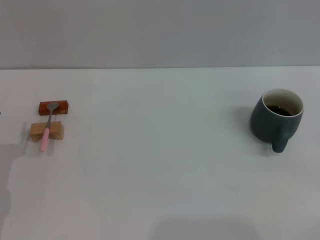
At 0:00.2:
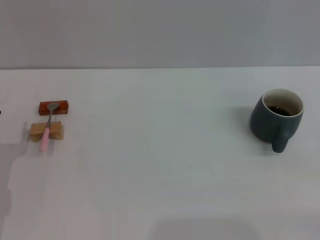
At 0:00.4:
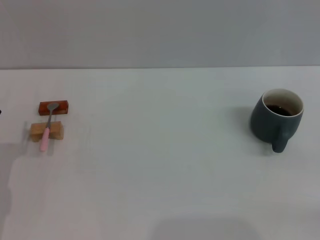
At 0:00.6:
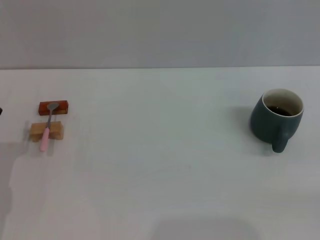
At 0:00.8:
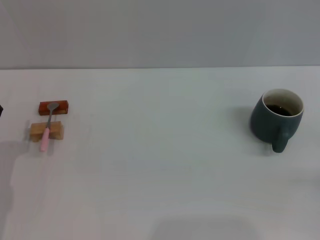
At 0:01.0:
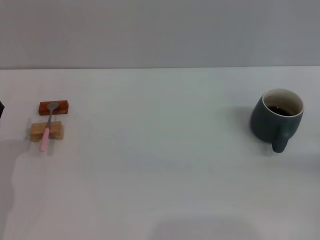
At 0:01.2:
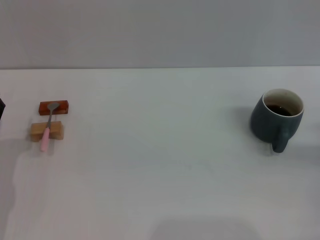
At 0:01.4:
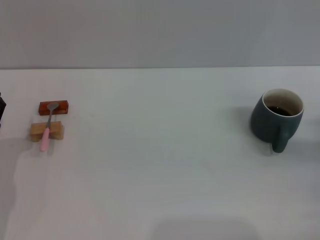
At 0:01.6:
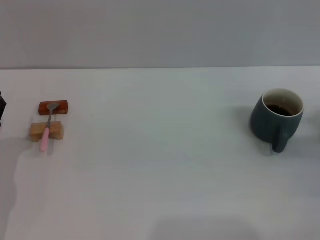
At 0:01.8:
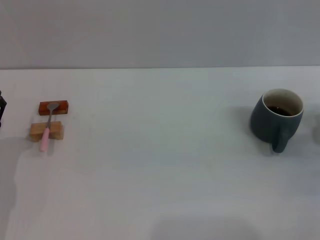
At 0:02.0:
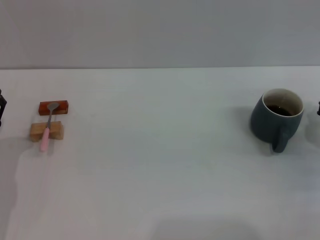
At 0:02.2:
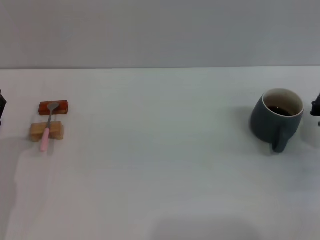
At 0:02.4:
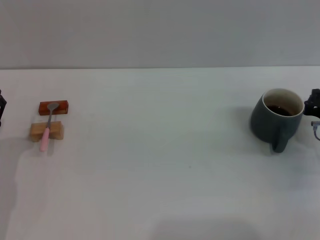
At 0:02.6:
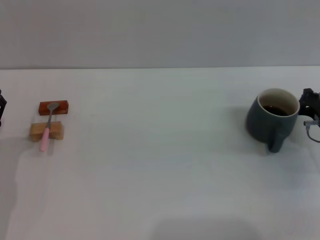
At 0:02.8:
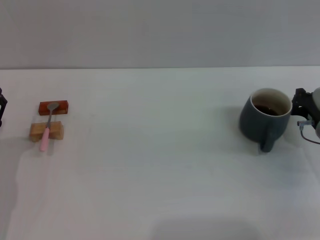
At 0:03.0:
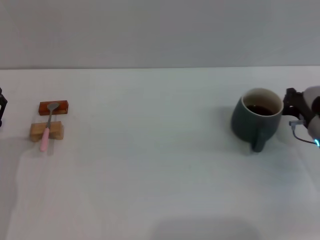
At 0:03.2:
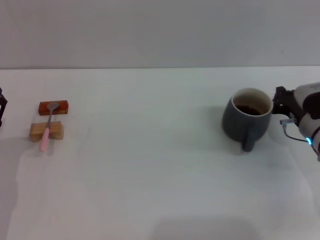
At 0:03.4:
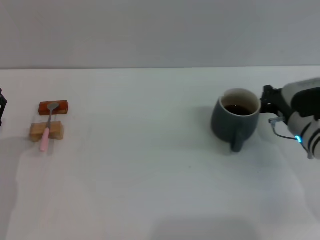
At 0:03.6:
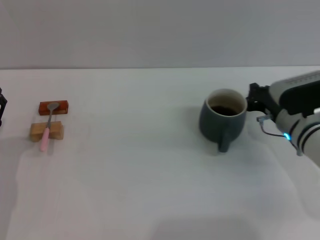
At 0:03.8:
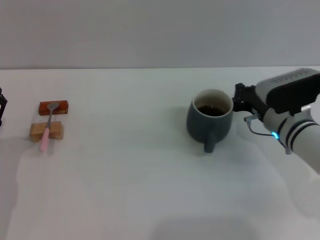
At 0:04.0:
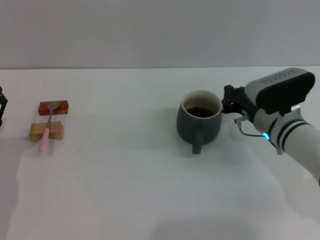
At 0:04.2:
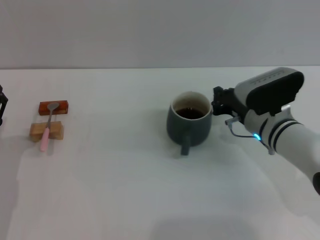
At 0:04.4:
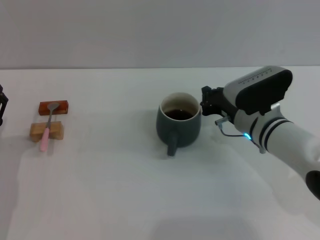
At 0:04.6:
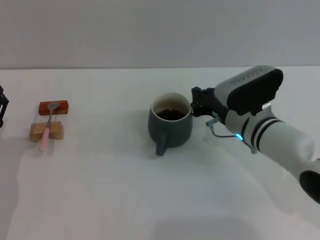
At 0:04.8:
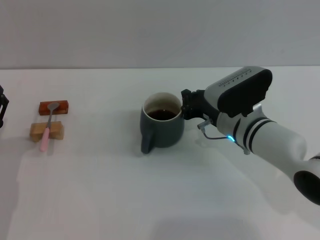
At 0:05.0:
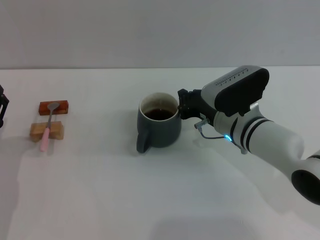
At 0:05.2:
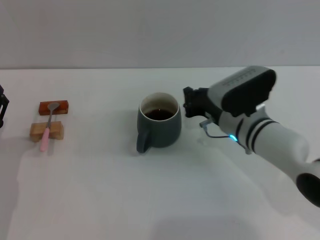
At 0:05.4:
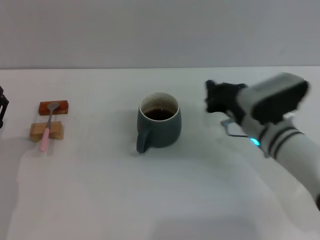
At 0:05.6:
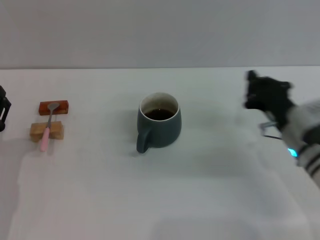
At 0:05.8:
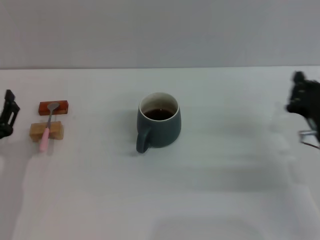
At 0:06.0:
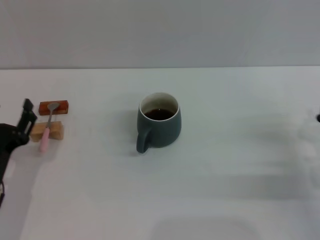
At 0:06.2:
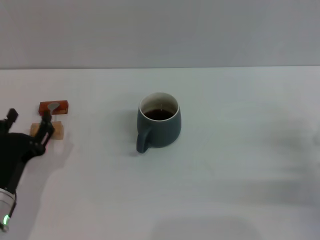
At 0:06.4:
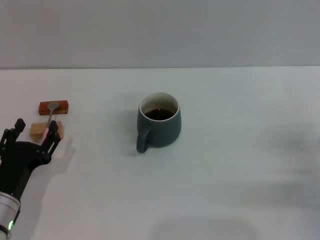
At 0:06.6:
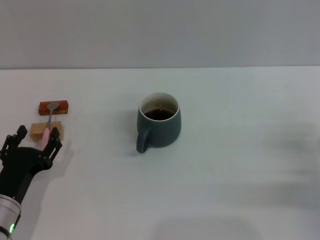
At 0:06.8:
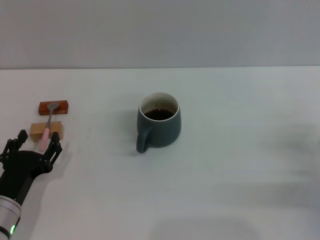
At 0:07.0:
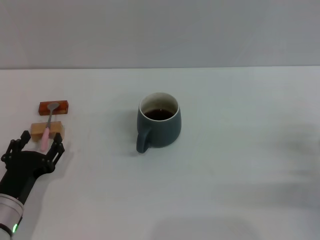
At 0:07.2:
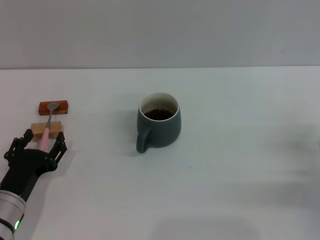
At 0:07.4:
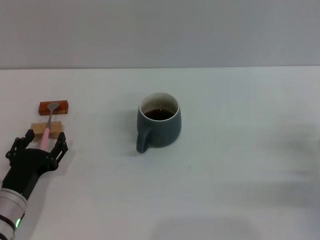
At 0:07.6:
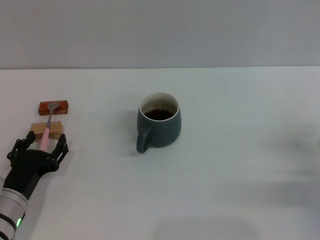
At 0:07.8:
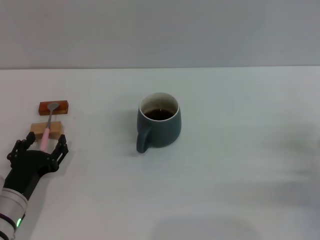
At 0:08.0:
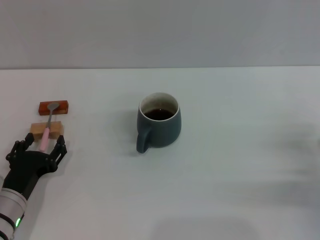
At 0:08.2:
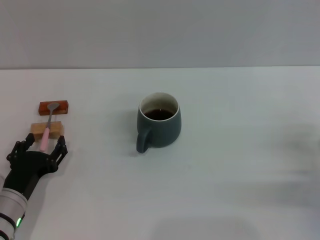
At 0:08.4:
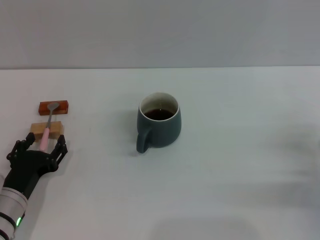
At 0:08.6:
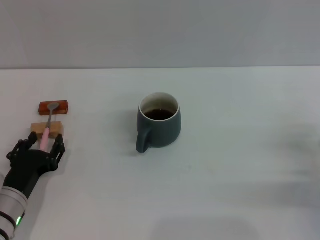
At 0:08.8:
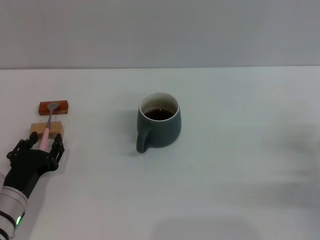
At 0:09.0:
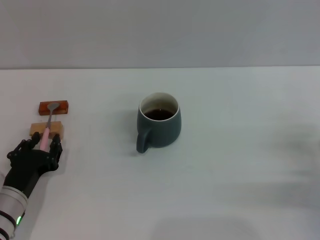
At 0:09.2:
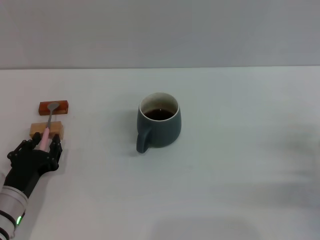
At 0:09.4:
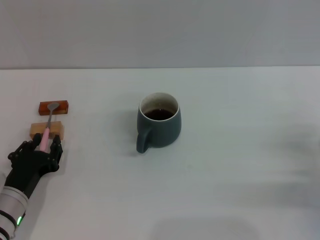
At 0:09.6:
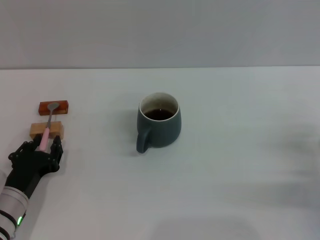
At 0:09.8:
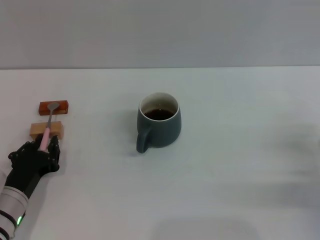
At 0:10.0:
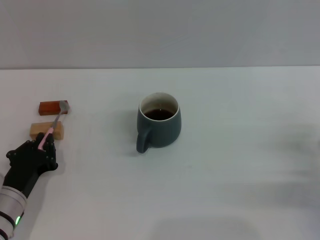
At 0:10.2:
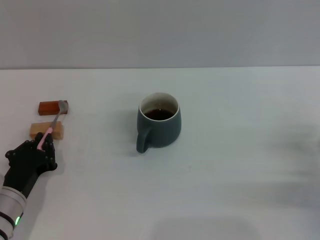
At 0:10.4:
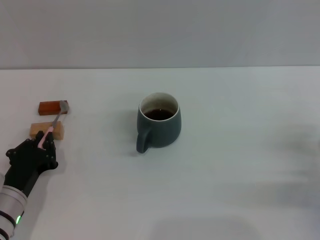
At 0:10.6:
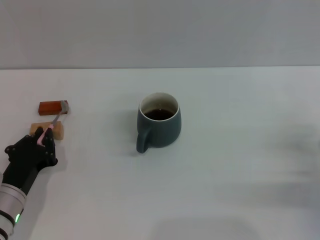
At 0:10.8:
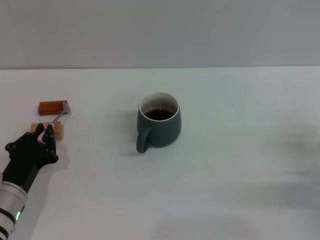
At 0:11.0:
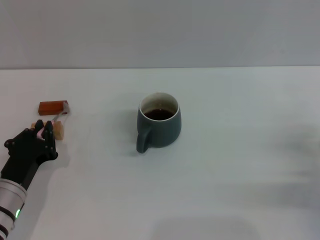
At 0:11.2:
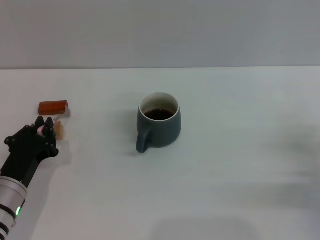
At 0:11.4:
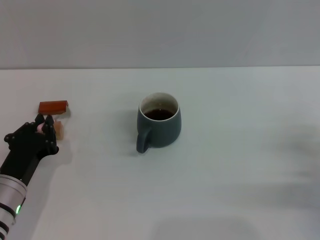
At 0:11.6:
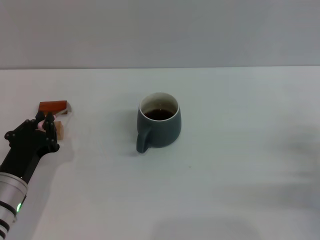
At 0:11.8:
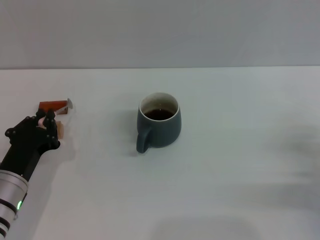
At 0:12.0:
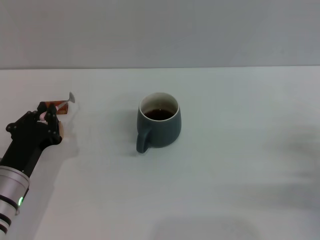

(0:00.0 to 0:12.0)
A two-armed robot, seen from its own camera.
Task of the whole recording: Move the grey cup to the center, lift the pink spoon, stir it three times in the cup, and put the spoon into the cup.
Step, 0:00.0 - 0:05.4: Move the cup with coffee to the center of view with the right gripper.
0:00.0 - 0:01.6: The right gripper goes some 15 cm forward.
0:01.6 - 0:03.0: The right gripper goes approximately 5 cm to the left.
0:03.0 - 0:04.4: The right gripper goes some 10 cm to the left.
0:04.4 - 0:06.0: The right gripper moves to the right and backward, roughly 15 cm.
0:06.0 - 0:07.6: The grippers move only a little.
0:07.6 - 0:09.0: Both grippers stay about where they are.
0:09.0 - 0:10.4: The left gripper closes its fingers.
0:10.4 - 0:12.0: The grippers make only small movements.

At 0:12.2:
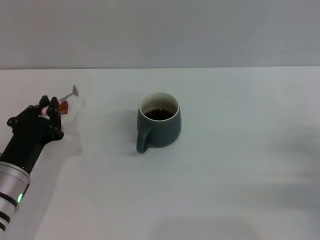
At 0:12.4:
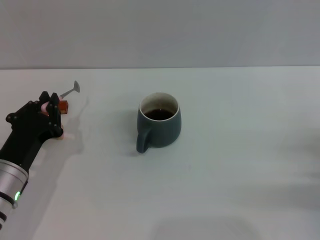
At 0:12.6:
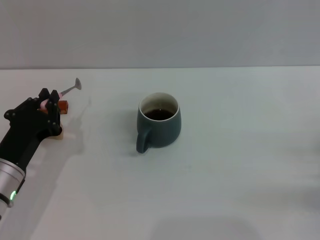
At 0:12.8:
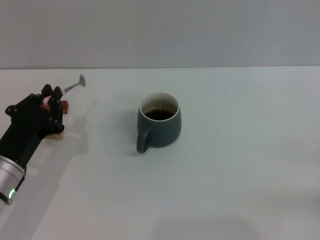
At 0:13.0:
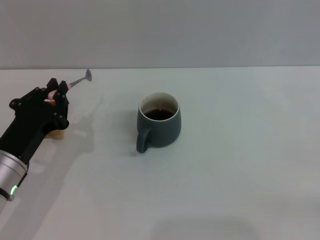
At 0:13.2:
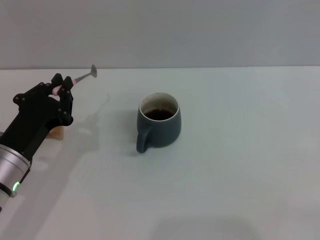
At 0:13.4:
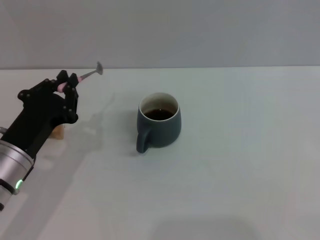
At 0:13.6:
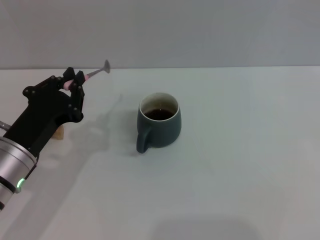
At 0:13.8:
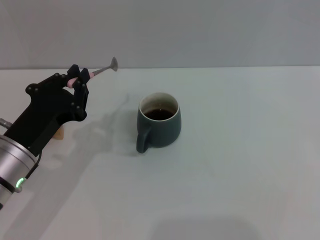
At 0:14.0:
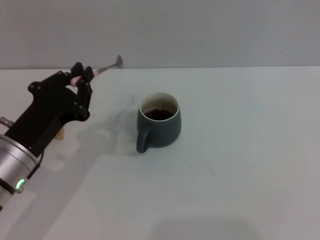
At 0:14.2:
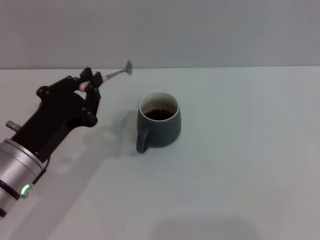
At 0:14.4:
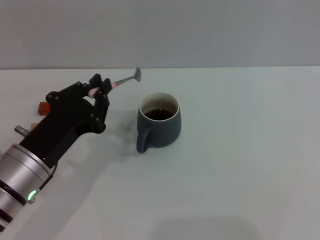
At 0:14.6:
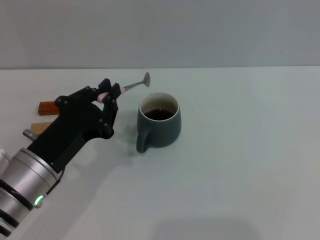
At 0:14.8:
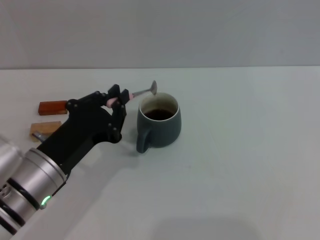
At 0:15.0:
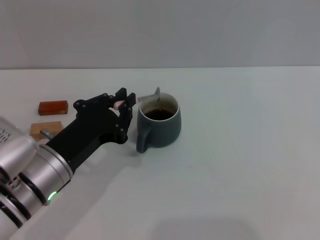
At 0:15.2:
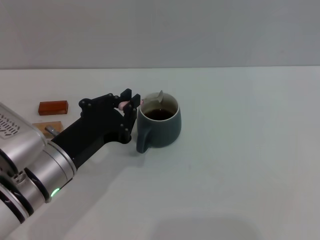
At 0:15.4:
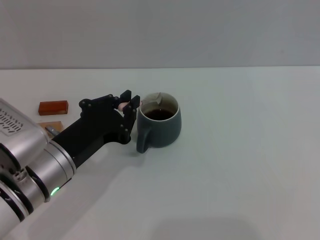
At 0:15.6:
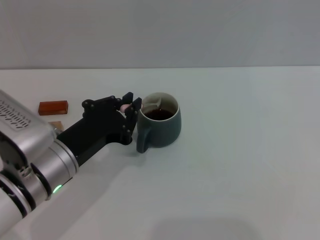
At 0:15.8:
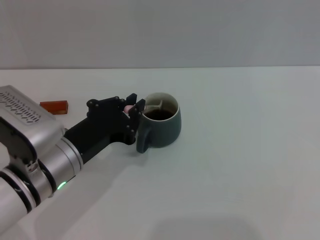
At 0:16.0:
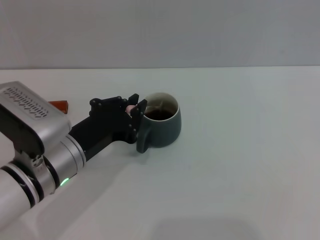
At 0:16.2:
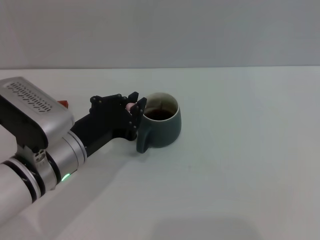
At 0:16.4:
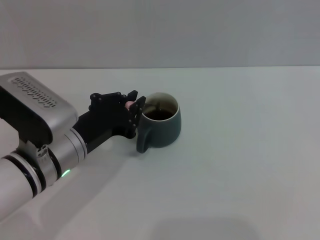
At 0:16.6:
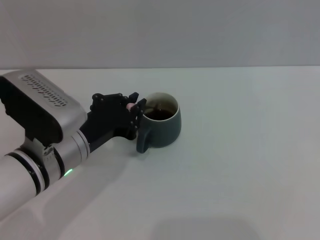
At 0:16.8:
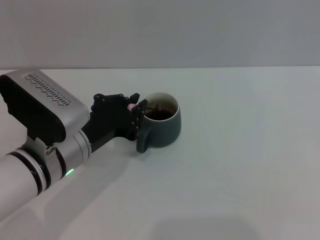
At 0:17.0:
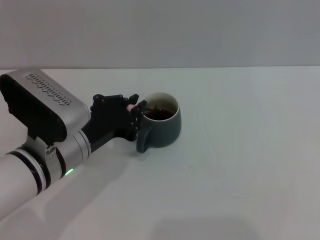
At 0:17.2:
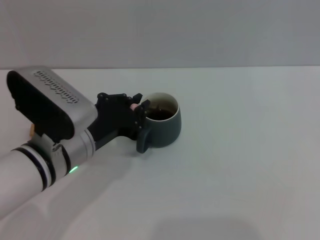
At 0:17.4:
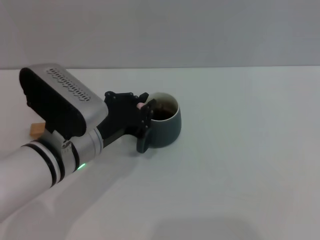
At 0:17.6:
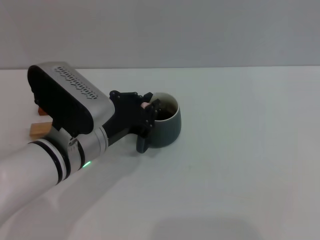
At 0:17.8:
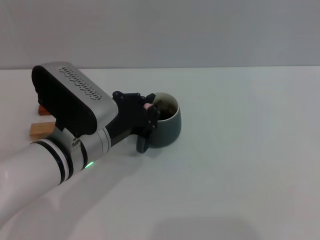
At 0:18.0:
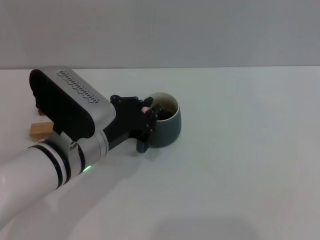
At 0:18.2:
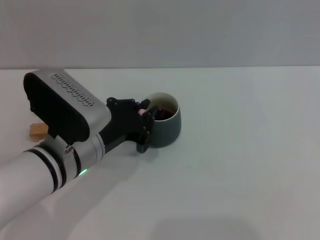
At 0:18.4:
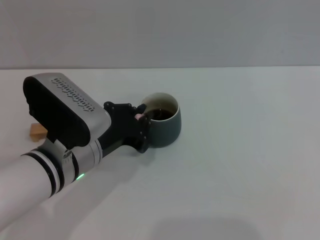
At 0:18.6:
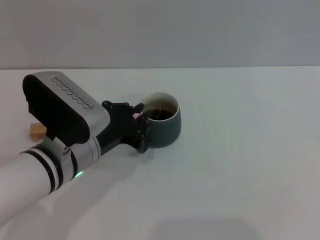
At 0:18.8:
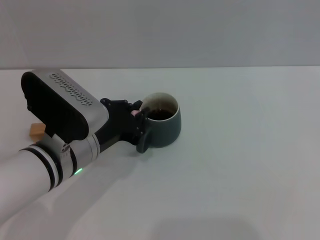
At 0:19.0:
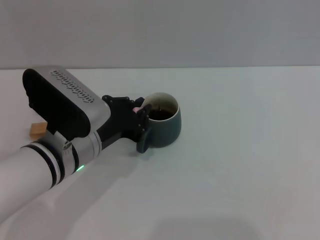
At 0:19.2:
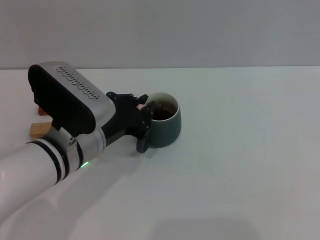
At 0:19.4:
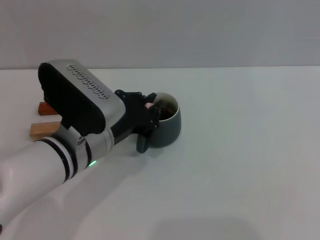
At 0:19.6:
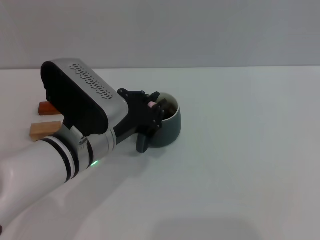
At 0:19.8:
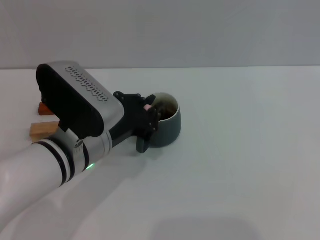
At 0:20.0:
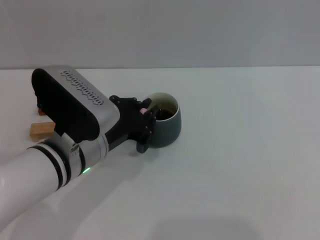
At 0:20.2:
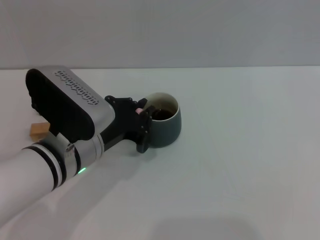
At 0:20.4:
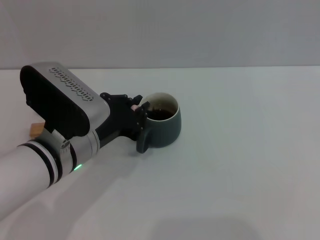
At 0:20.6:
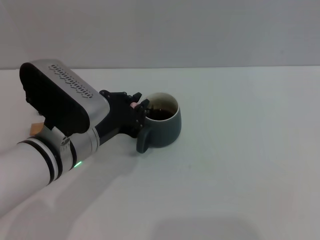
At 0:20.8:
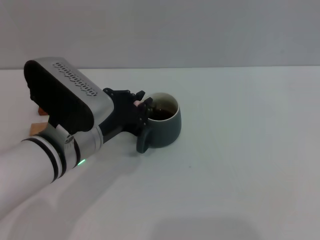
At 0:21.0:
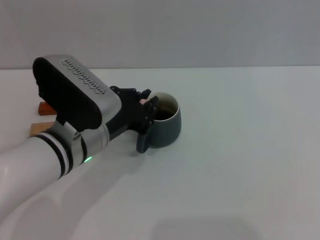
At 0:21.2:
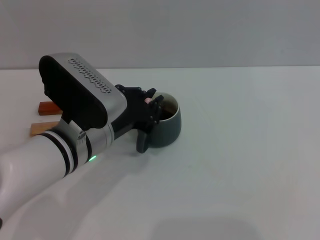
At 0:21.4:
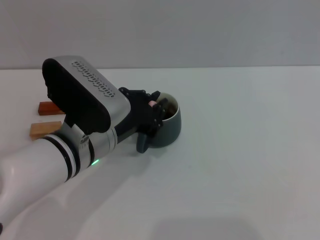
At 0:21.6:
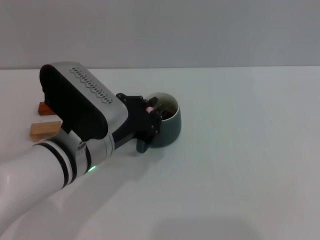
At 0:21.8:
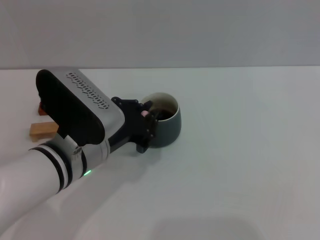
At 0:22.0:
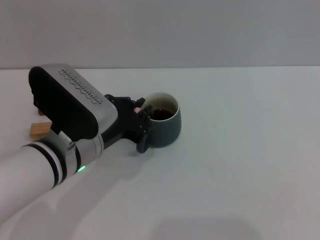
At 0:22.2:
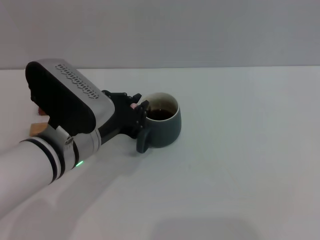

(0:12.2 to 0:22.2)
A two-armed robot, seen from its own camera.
Task of the whole recording: Move the grey cup to the center, lift the pink spoon, stir it three times in the cup, and put the spoon into the cup.
0:12.2 - 0:13.6: The left gripper travels upward by about 5 cm. The right gripper is displaced to the right and backward by some 15 cm.
0:13.6 - 0:15.0: There are only small adjustments of the grippers.
0:15.0 - 0:16.4: There are only small adjustments of the grippers.
0:16.4 - 0:18.0: The grippers move only a little.
0:18.0 - 0:19.4: Both grippers stay about where they are.
0:19.4 - 0:22.2: The grippers make only small movements.
